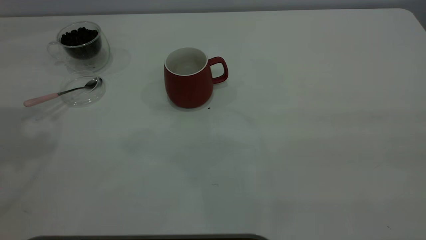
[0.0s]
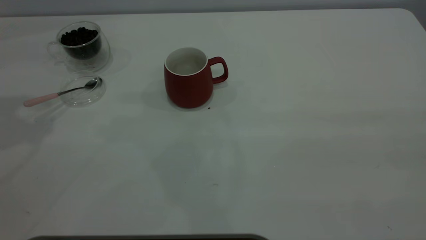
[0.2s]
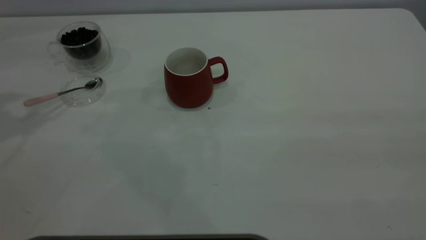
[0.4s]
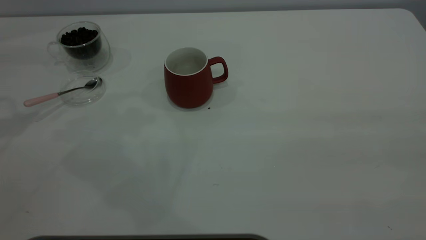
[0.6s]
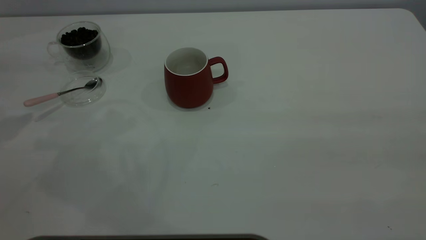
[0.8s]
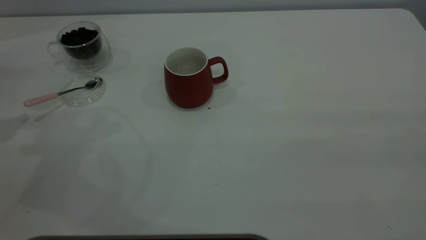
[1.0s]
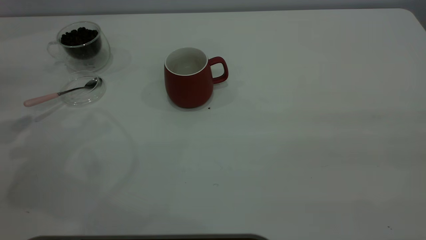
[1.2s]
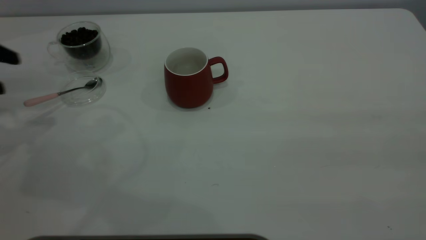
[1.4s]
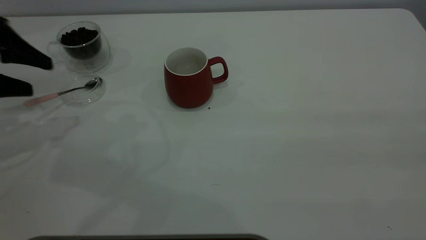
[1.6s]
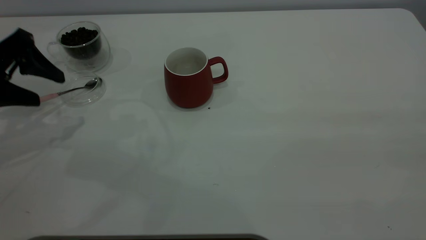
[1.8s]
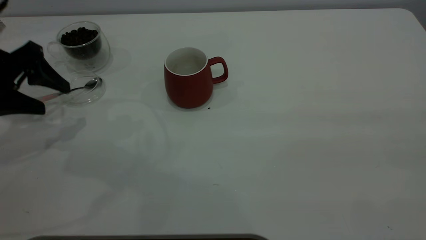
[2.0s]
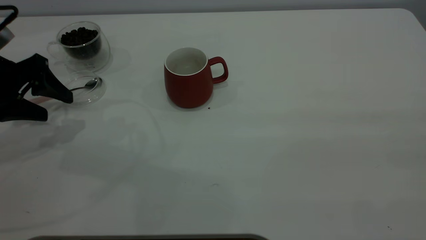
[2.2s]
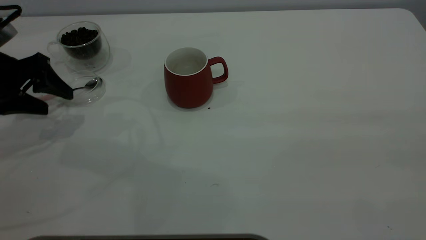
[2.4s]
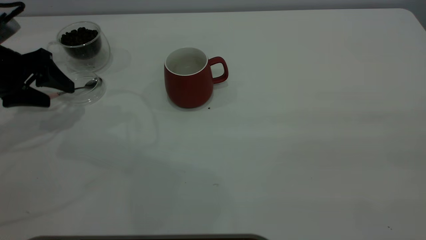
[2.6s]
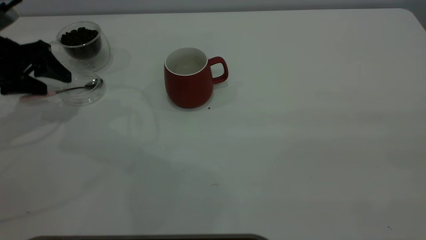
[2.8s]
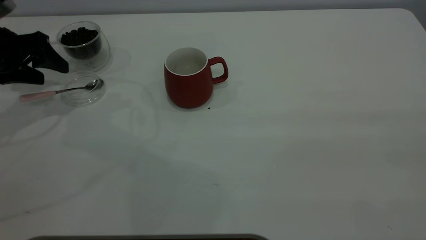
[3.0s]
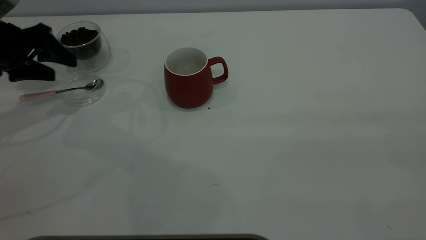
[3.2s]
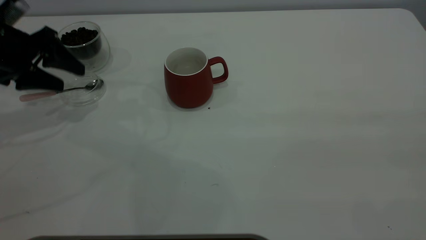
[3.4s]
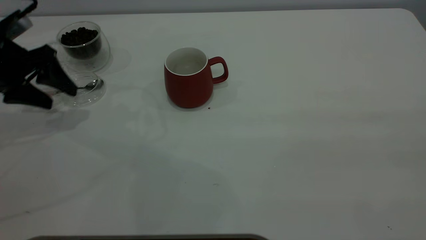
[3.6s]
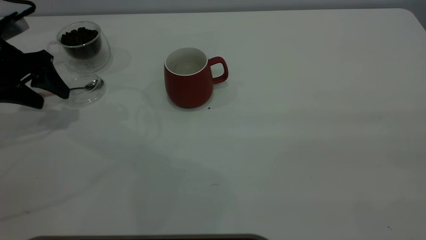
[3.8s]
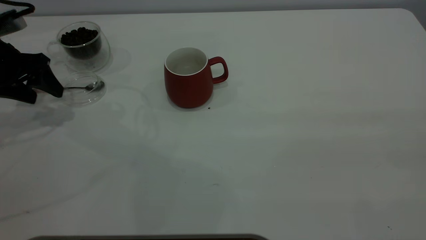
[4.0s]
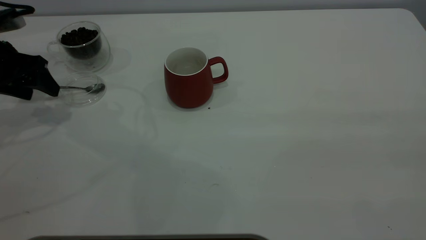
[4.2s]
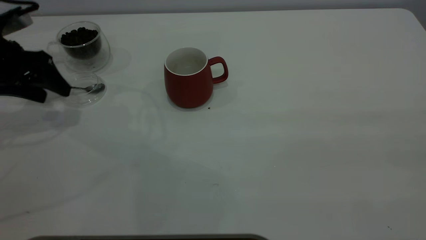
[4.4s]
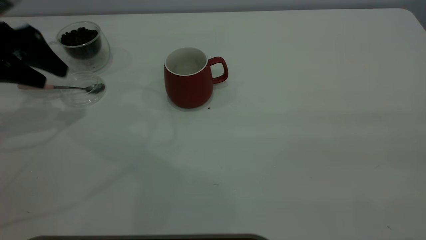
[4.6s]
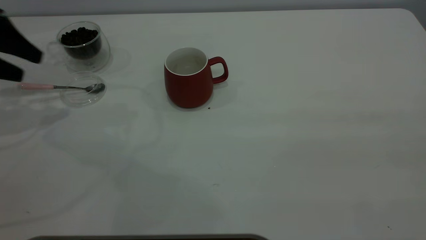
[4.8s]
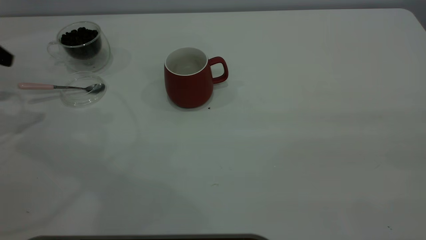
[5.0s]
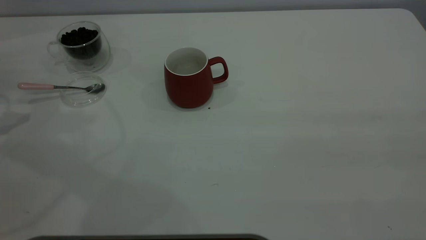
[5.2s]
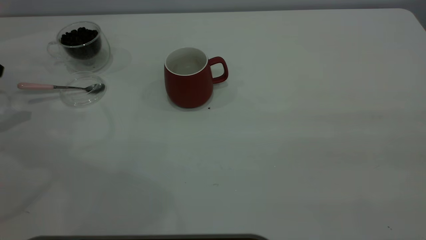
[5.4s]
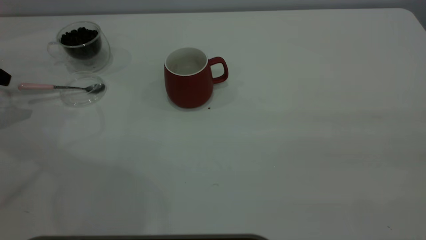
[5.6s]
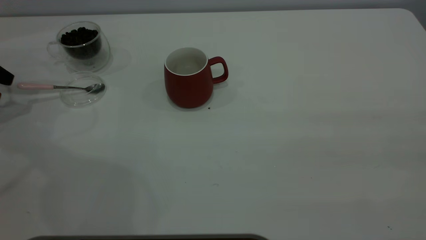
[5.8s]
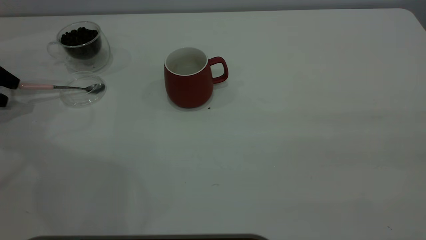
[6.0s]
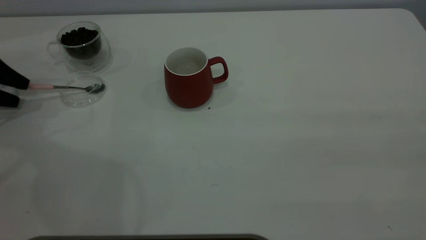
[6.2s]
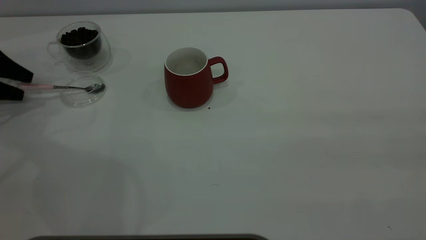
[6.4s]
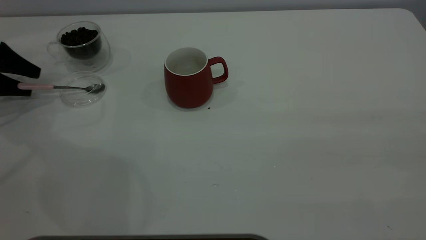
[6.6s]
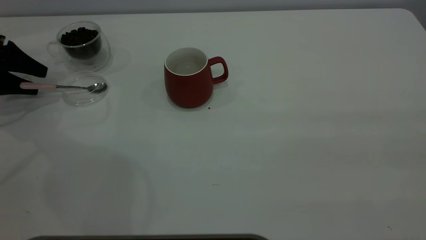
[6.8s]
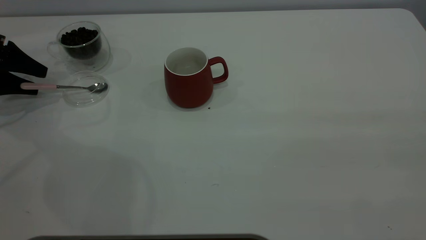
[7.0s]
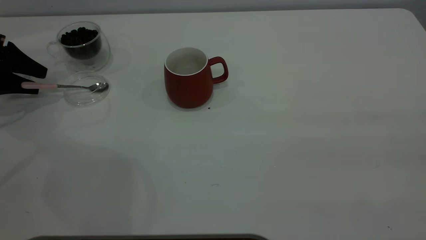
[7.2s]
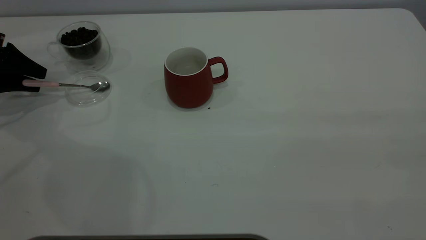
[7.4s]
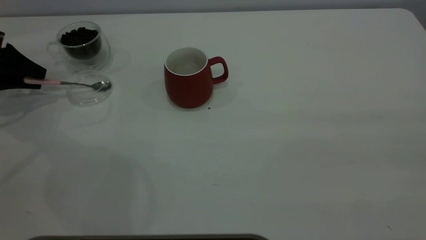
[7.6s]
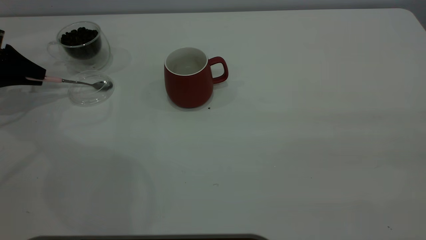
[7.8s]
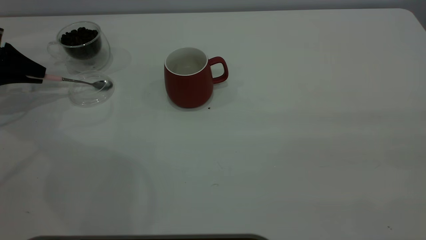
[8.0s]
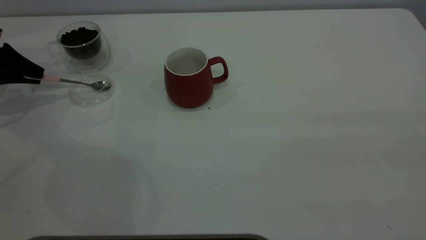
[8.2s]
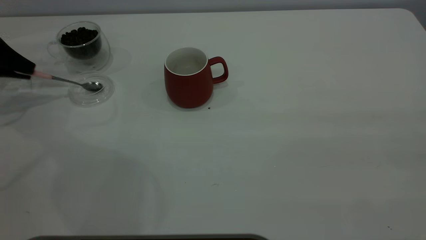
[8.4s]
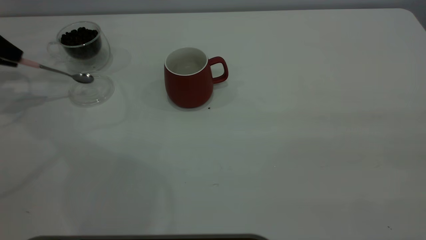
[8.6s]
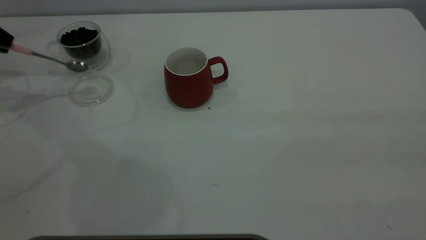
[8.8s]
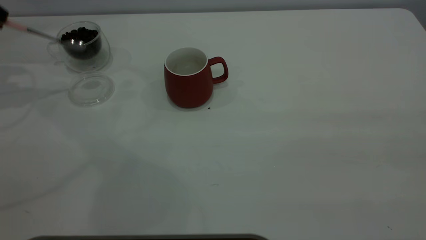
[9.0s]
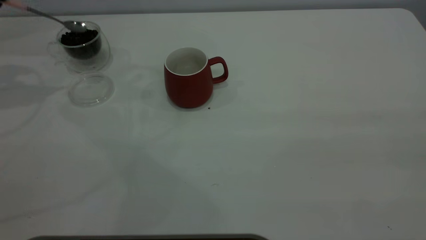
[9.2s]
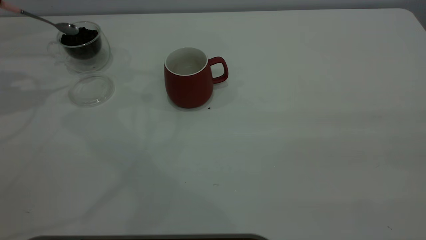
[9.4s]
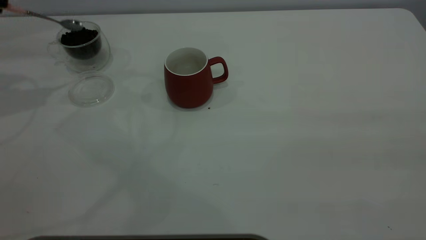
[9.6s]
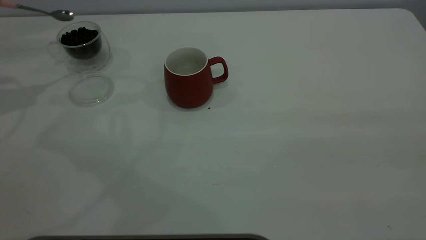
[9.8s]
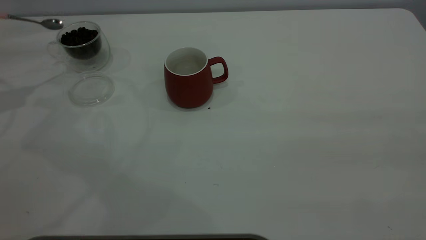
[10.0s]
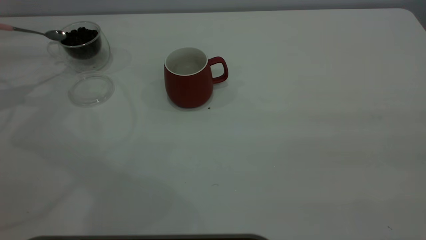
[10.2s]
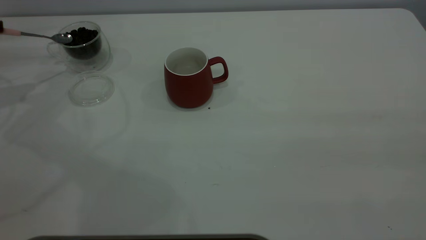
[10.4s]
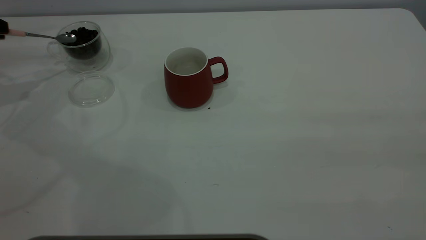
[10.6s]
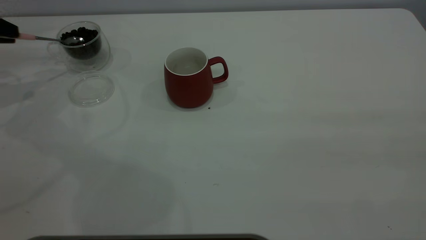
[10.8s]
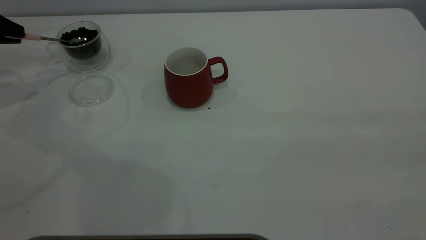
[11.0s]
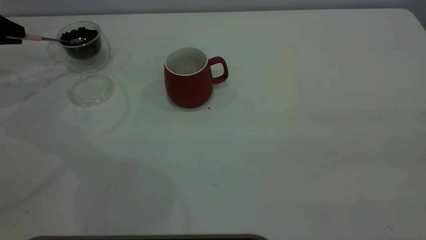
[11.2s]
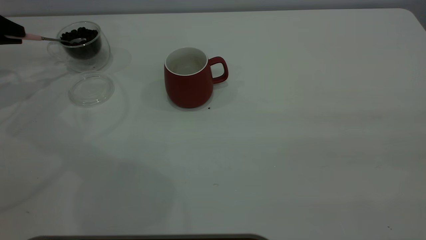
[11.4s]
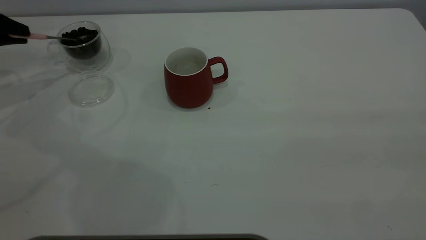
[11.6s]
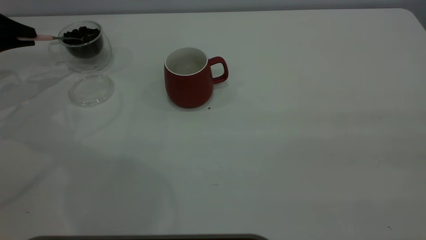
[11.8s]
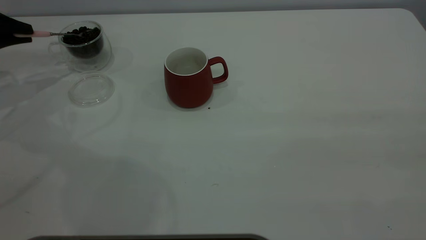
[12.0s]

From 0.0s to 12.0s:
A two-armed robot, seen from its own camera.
Task of the whole recording: the right gripper place the red cup in the center of the table, the left gripper take the pink spoon from the cup lid and scoop out the coffee beans from the coffee cup and put them into the red cup, the left gripper put the spoon back into the cup lid.
Step, from 0.0s to 9.0s: Pick up the spoon.
From 0.0s to 1.6s: The left gripper travels downward by approximately 20 cm.
From 1.6s to 3.0s: The left gripper travels forward by some 5 cm.
From 3.0s to 4.4s: The grippers make only small movements.
From 4.4s to 6.0s: The left gripper is displaced to the left by about 15 cm.
From 6.0s to 7.6s: The left gripper closes its fingers.
From 7.6s to 9.0s: The left gripper goes some 15 cm upward.

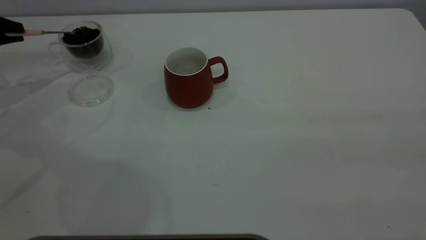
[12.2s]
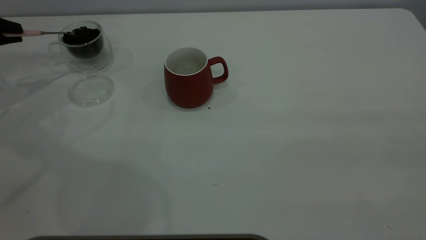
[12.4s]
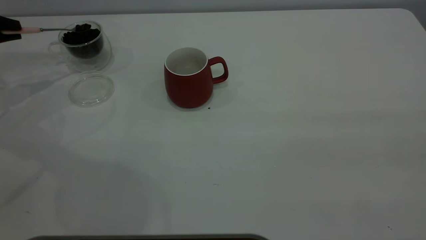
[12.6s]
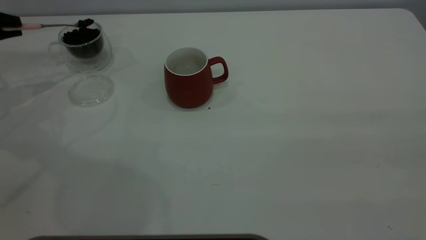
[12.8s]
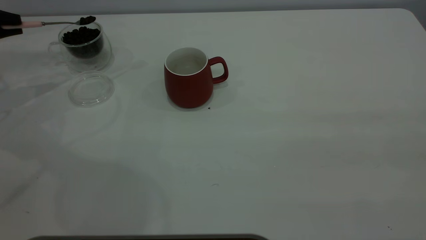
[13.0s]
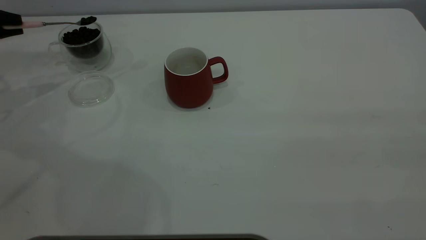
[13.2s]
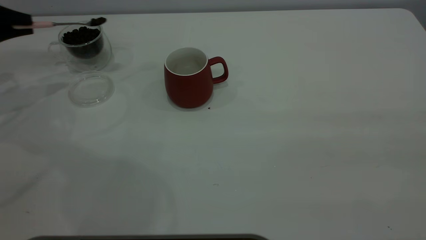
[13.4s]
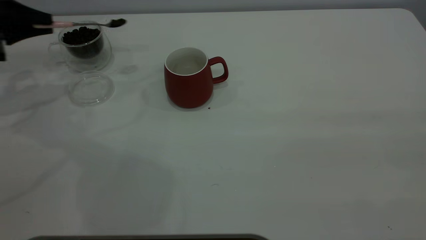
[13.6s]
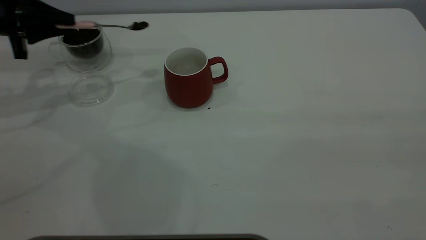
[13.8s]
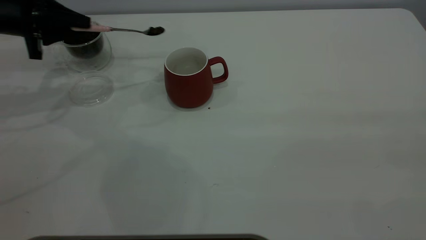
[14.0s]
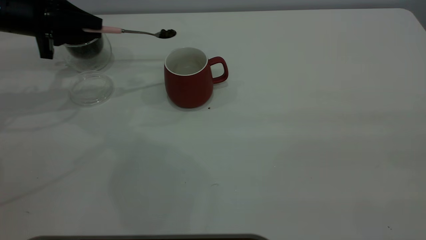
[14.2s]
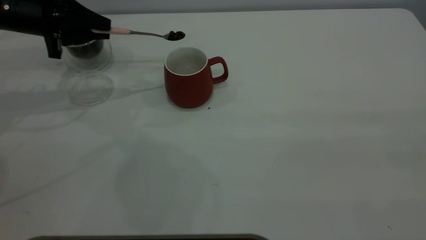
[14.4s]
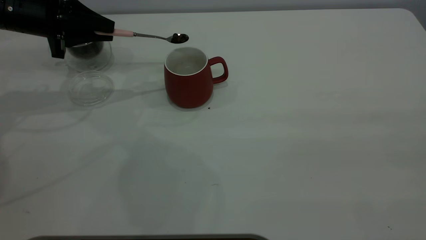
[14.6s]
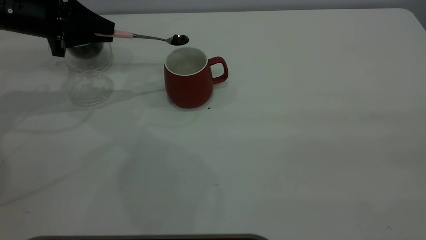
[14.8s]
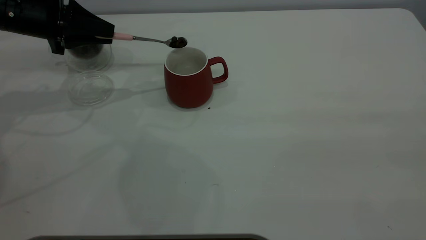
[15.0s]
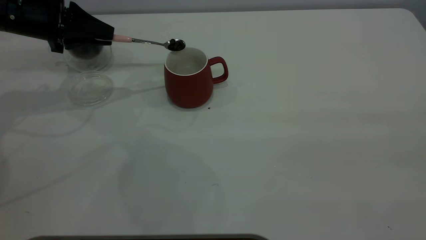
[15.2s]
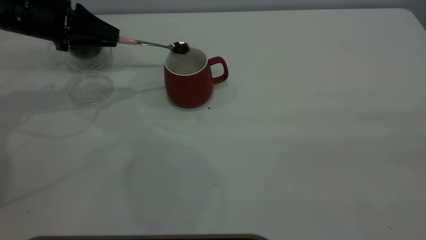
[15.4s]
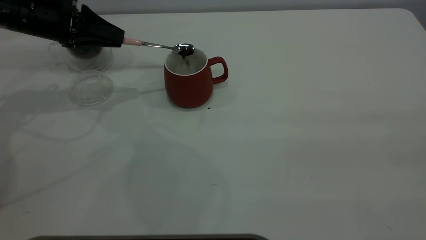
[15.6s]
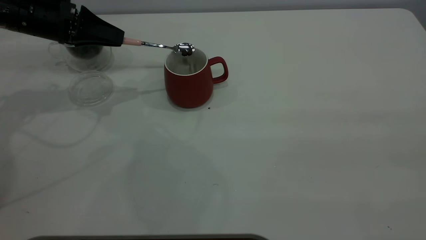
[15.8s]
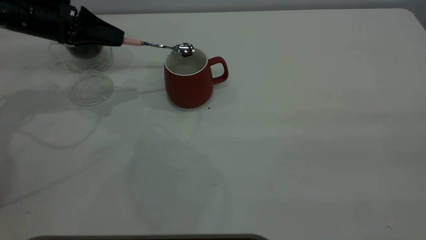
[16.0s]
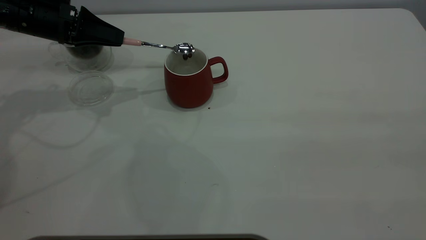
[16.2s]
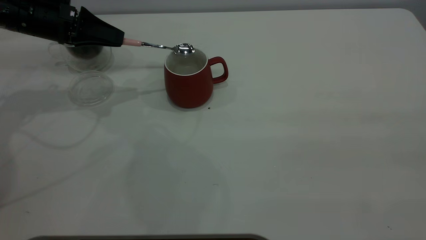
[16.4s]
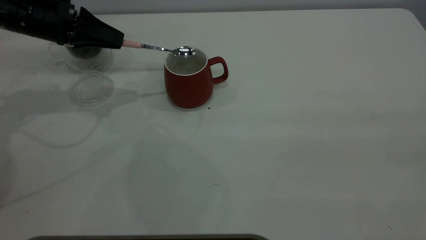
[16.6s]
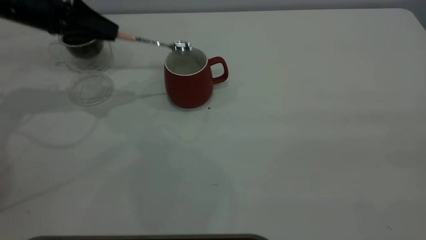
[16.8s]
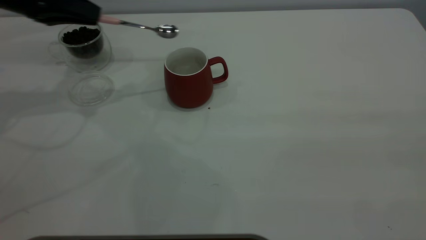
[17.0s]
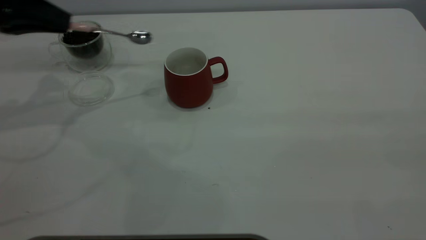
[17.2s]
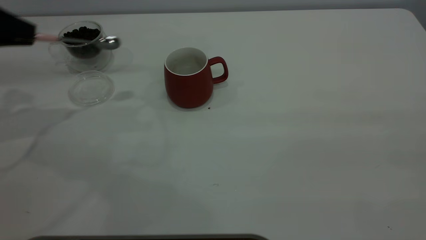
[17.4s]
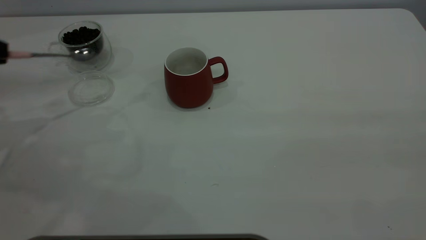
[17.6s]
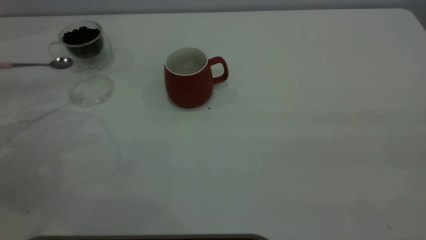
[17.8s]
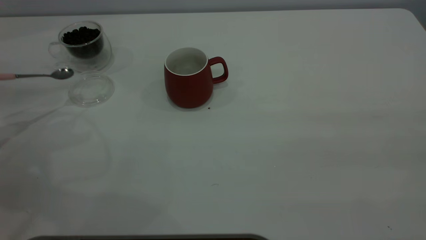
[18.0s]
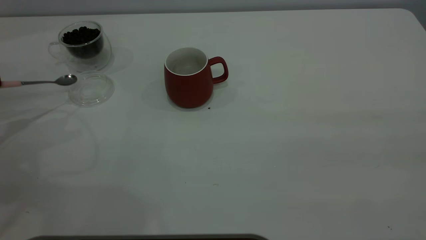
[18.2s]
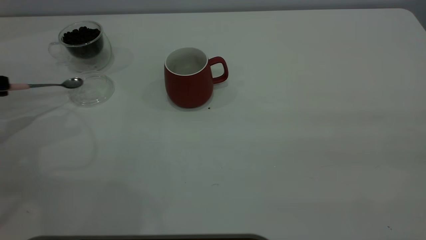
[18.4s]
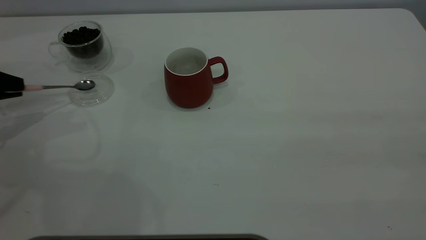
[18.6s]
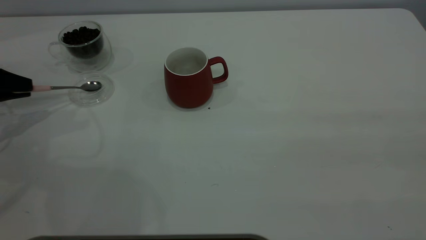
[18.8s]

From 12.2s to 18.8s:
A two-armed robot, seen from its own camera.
Task of the whole recording: the right gripper place the red cup in the center of the table, the left gripper take the pink spoon from the cup lid and scoop out the coffee beans from the coffee cup and put them into the red cup, the left gripper put the spoon back into the cup lid.
Step, from 12.2s to 16.8s: Scoop a spoonful of beans into the cup.
From 12.2s to 13.8s: The left gripper moves to the right, approximately 10 cm.
From 13.8s to 15.4s: The left gripper travels to the right by approximately 5 cm.
From 15.4s to 17.2s: The left gripper shifts roughly 10 cm to the left and upward.
From 17.2s to 18.8s: The left gripper shifts approximately 15 cm downward and to the left.
